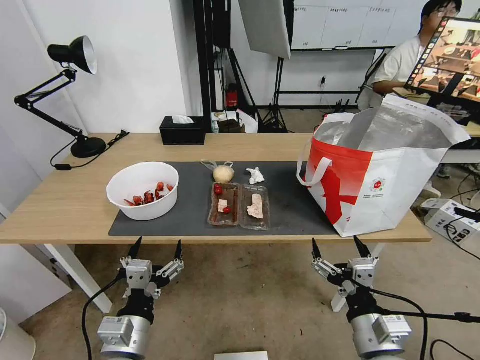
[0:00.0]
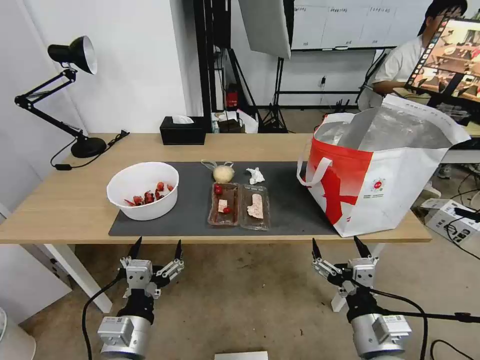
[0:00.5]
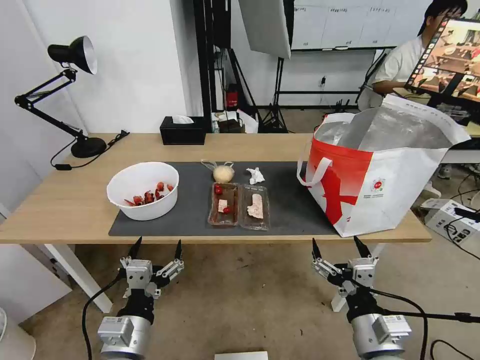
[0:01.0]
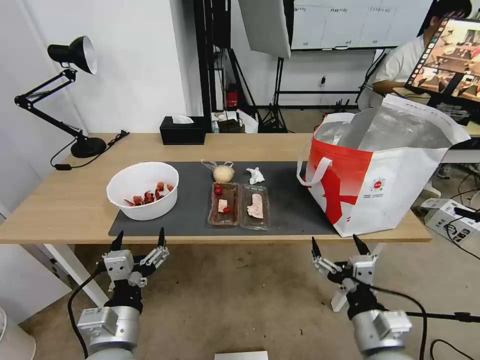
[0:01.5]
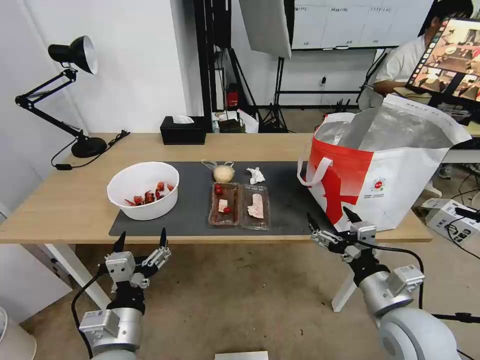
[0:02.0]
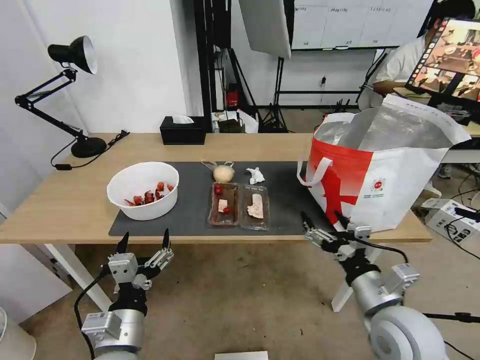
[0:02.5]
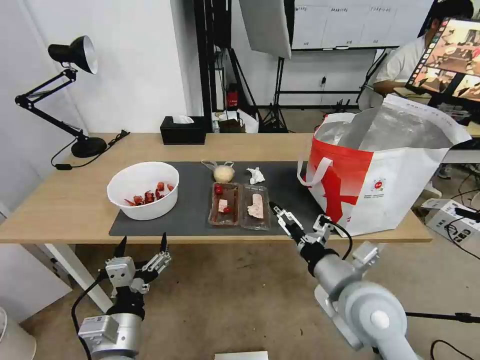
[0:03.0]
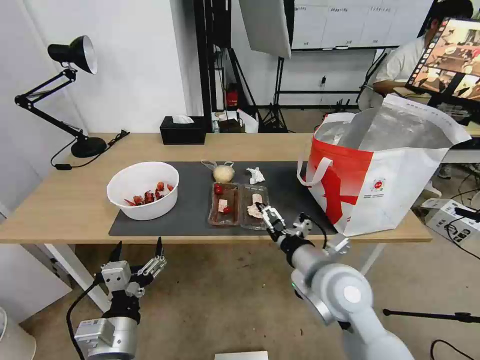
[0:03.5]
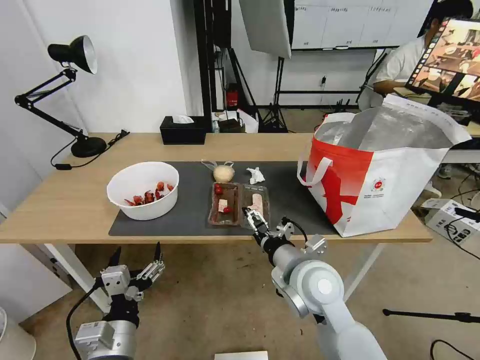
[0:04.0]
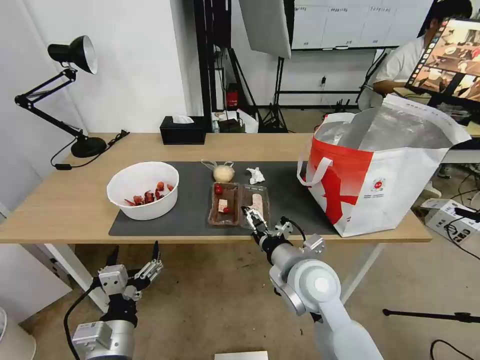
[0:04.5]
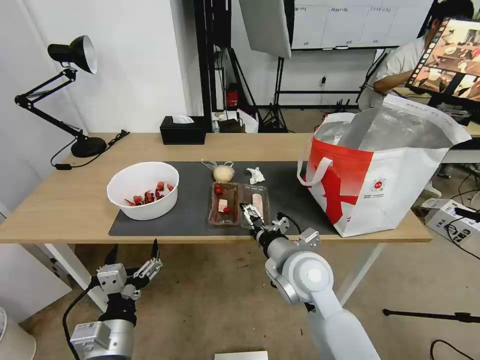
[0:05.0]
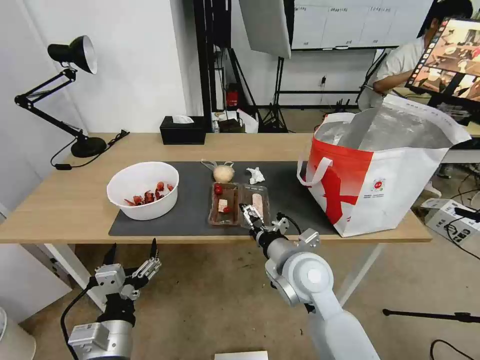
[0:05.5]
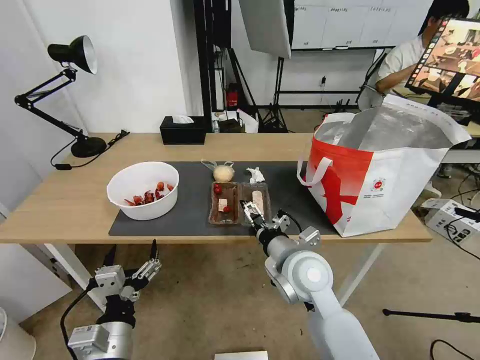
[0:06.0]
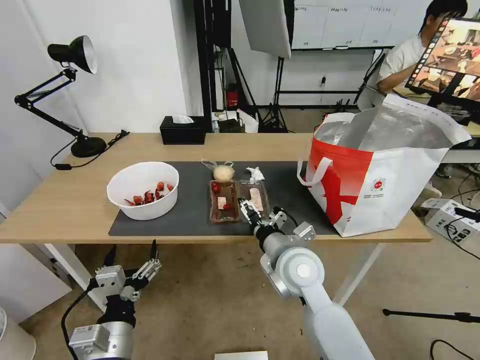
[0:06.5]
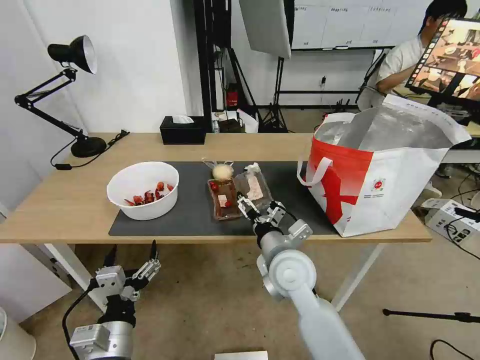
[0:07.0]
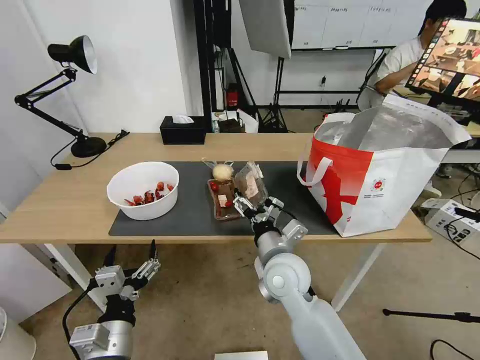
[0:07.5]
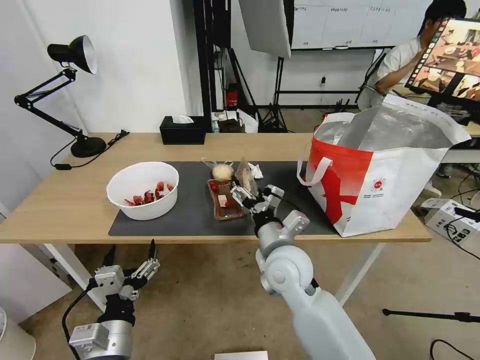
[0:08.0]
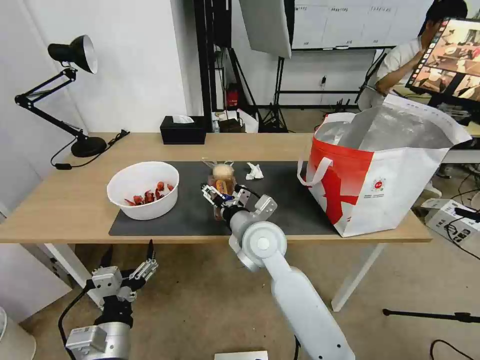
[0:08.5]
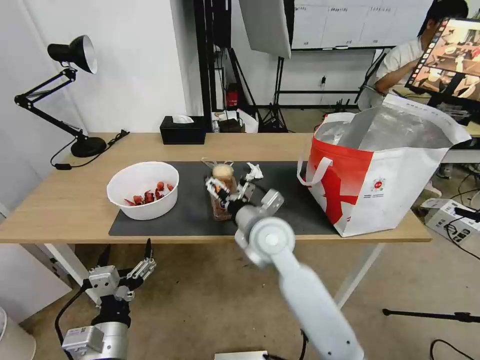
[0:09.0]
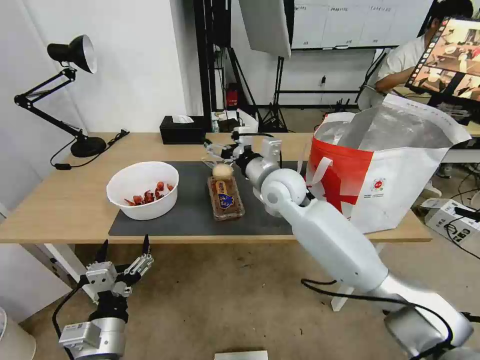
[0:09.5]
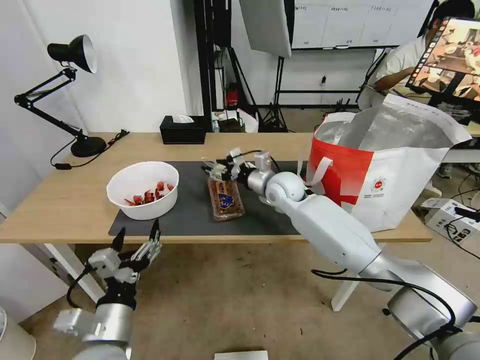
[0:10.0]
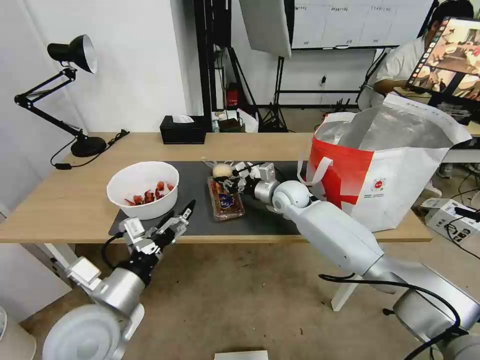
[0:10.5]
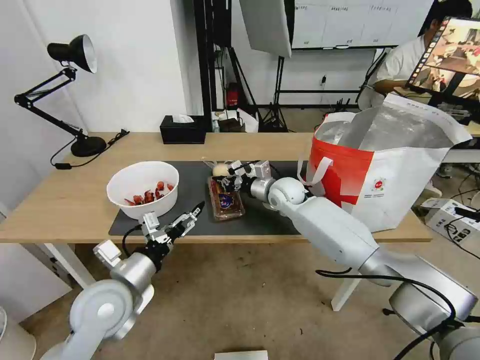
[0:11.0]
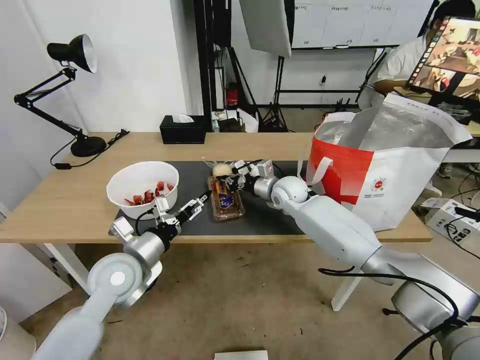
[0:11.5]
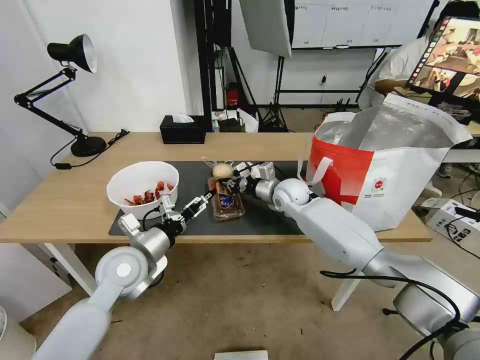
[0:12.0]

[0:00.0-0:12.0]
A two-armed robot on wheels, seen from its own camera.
Task of the whole recording: Pick up the trash from the table and place it into the takeout bag.
0:02.0 to 0:04.0: The right gripper shifts about 15 cm to the left and forward.
0:04.0 to 0:06.0: There are only small adjustments of the grippers.
0:08.0 to 0:10.0: The right gripper travels forward by approximately 20 cm.
0:10.0 to 0:12.0: The left gripper goes approximately 15 cm forward. The right gripper ends up approximately 5 cm from where it was, and closes up.

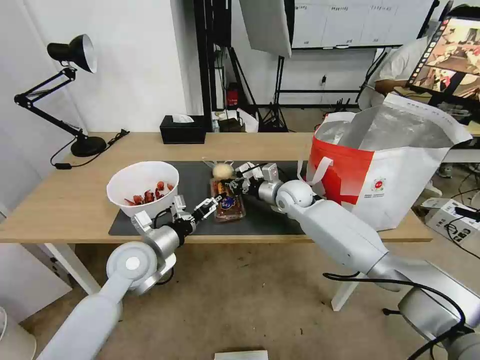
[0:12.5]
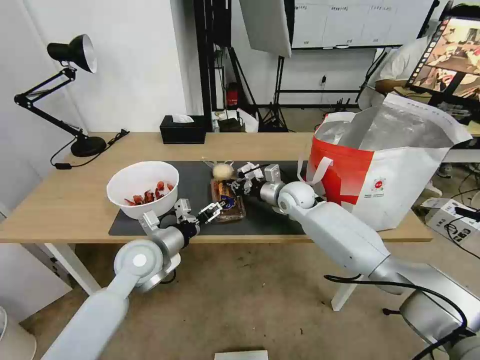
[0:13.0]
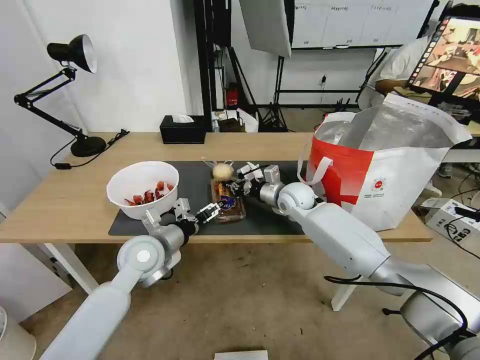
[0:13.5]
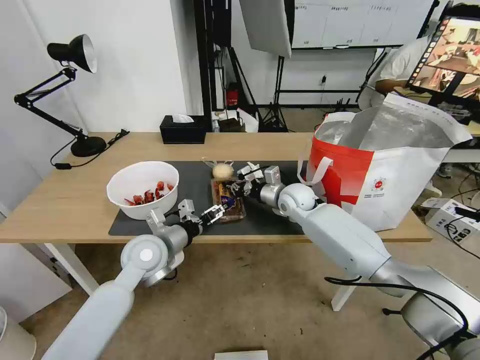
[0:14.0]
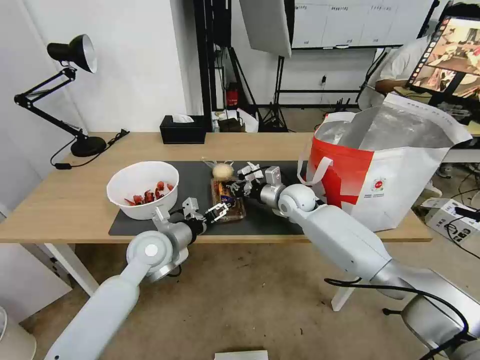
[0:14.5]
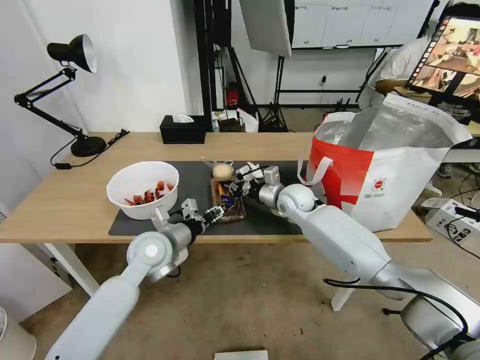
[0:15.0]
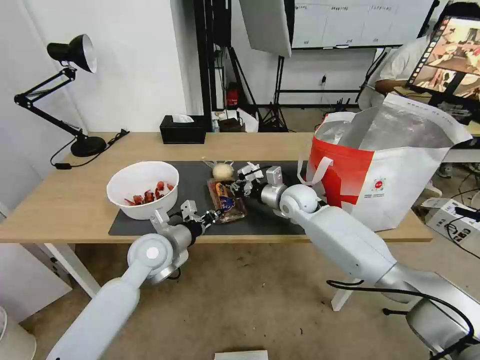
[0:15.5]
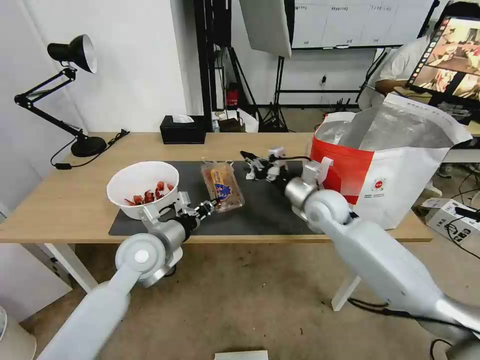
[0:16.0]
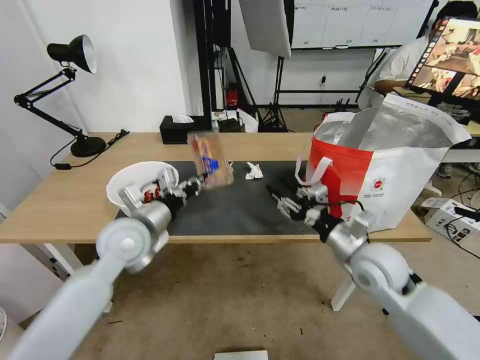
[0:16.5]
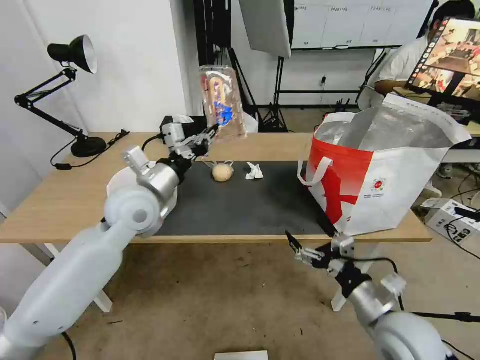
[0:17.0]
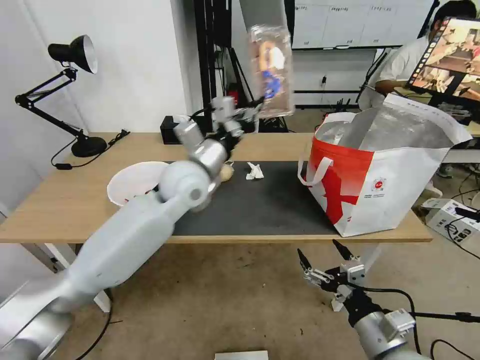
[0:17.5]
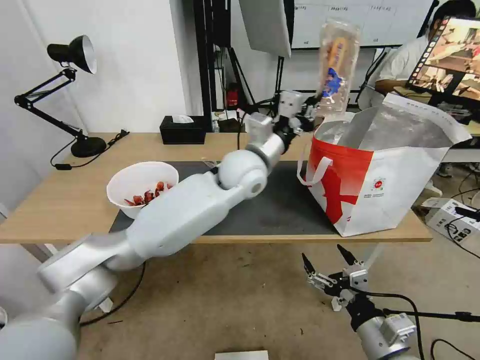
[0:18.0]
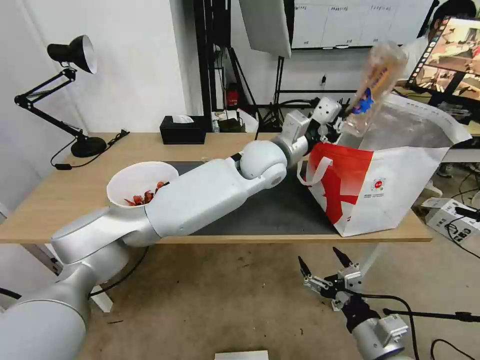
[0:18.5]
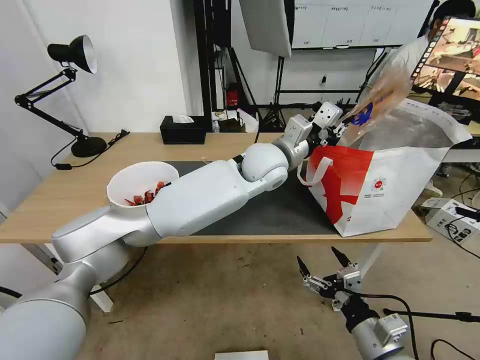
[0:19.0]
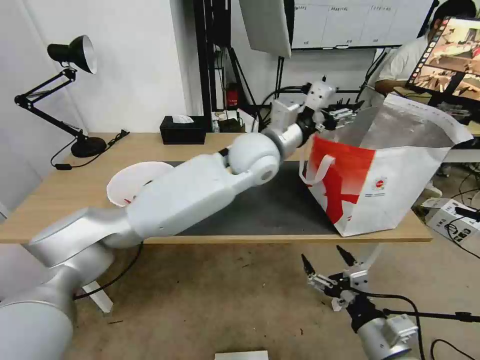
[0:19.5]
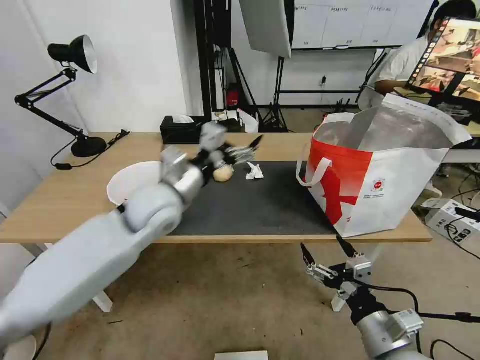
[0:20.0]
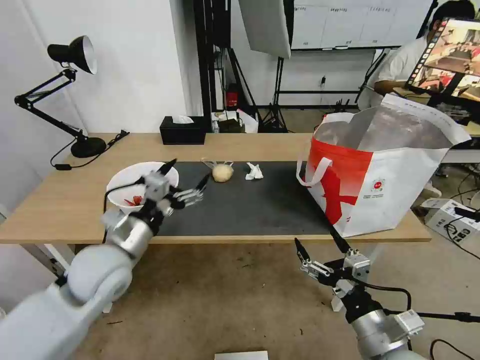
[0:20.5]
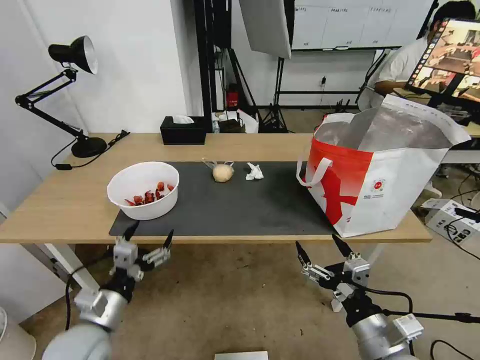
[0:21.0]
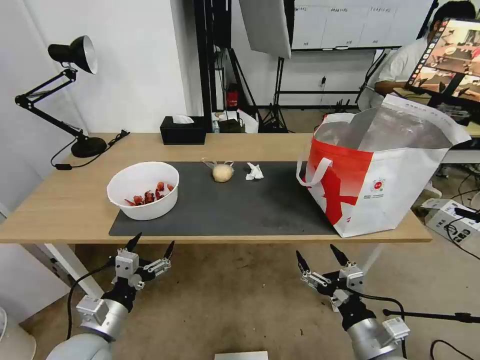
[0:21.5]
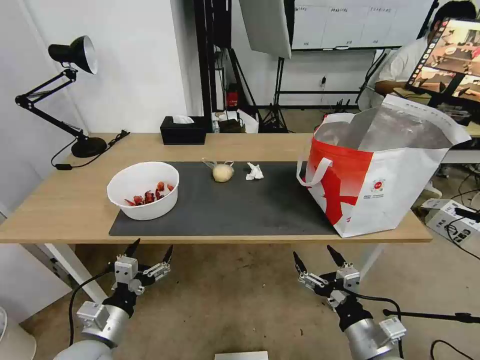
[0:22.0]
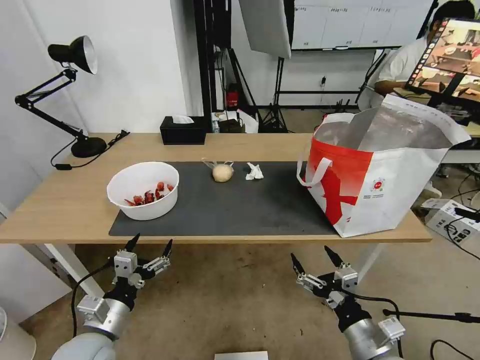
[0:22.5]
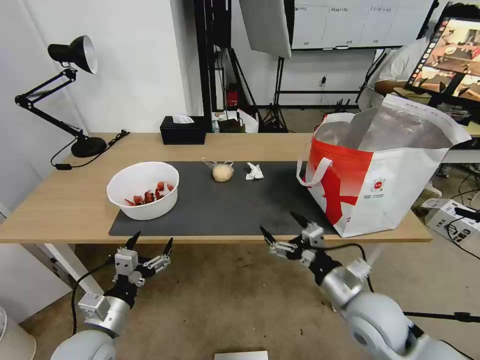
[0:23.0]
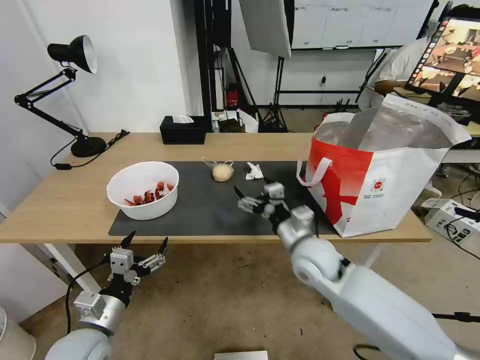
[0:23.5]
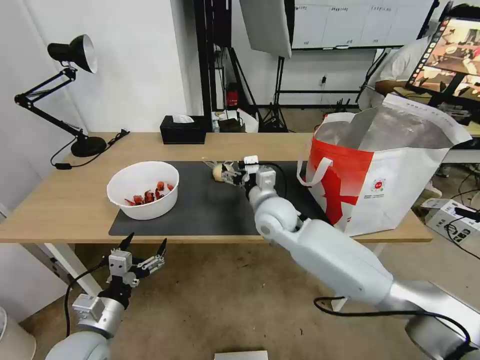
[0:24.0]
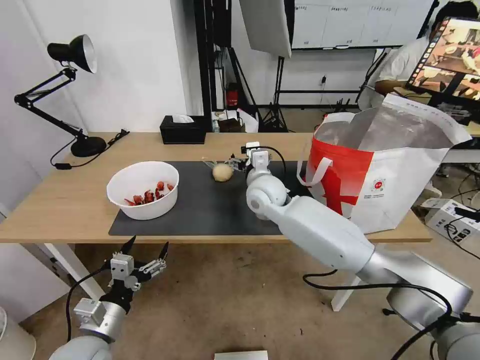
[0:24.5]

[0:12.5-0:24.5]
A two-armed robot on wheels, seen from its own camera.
Task of the whole recording: Pick up the trash from the table and place it into the takeout bag.
0:12.5 to 0:14.5: The grippers move only a little.
0:14.5 to 0:16.5: The left gripper shifts about 5 cm upward, and closes. The right gripper travels backward and to the right by some 25 cm, and opens.
0:16.5 to 0:18.5: The right gripper heads backward, covering roughly 20 cm, and opens up; the left gripper travels to the right and forward by about 30 cm.
0:18.5 to 0:20.5: The left gripper shifts some 35 cm to the left and backward, and opens its fingers.
0:20.5 to 0:22.5: The left gripper moves downward and backward, about 15 cm.
0:22.5 to 0:24.5: The right gripper goes approximately 40 cm forward and to the left.

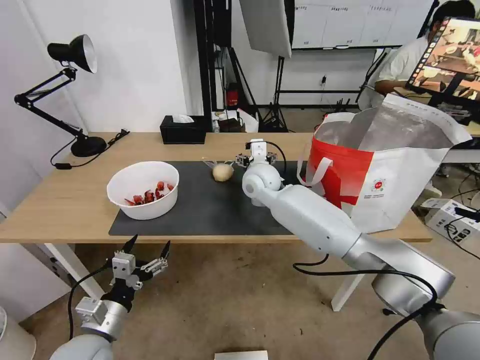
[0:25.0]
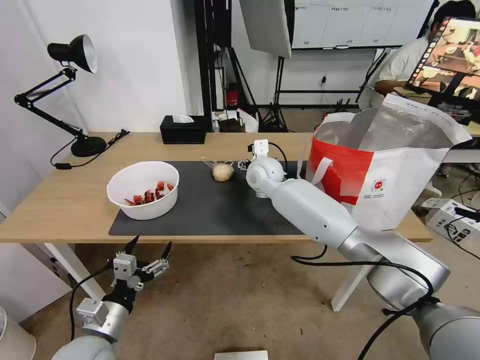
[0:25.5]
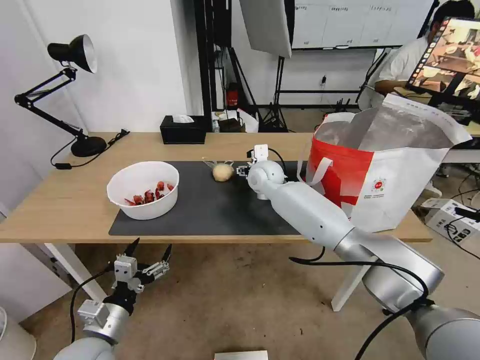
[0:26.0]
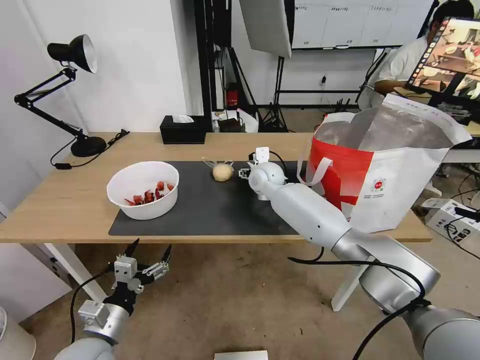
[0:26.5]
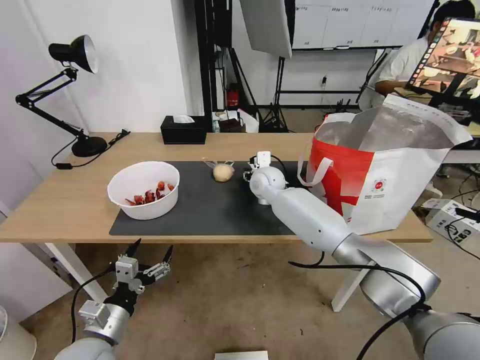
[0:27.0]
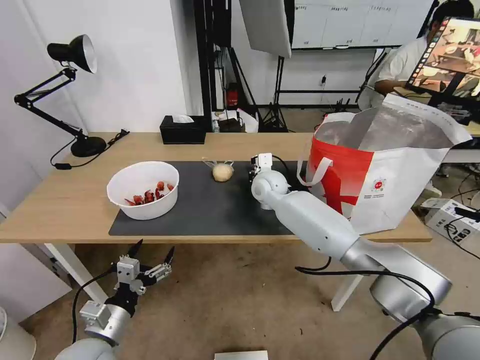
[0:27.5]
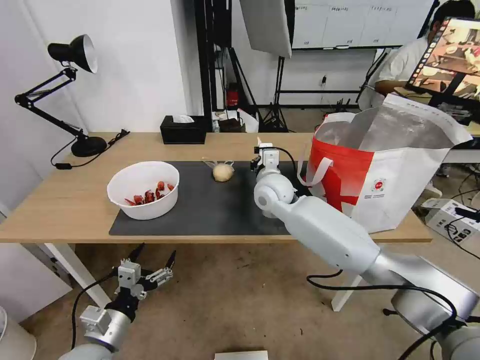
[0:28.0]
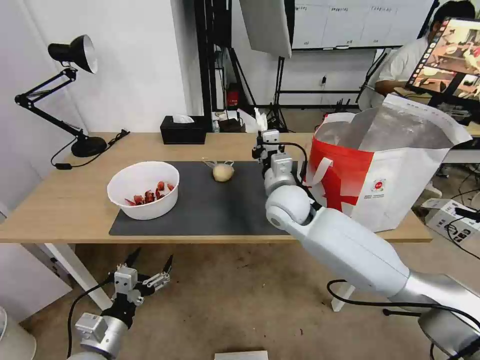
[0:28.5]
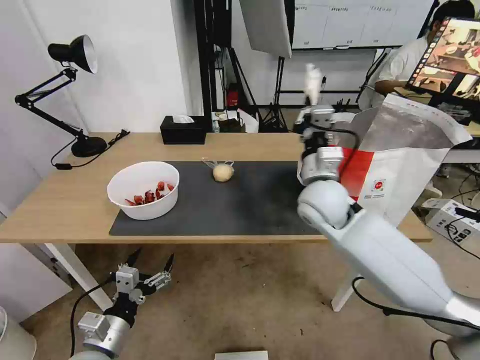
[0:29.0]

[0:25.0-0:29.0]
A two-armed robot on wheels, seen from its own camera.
Task of the whole recording: Pick up the trash from the table and place it into the takeout bag.
0:25.0 to 0:27.0: The right gripper moves some 5 cm, and closes its fingers.
0:27.0 to 0:29.0: The right gripper heads backward, to the right and upward, covering about 20 cm, and closes its fingers.
